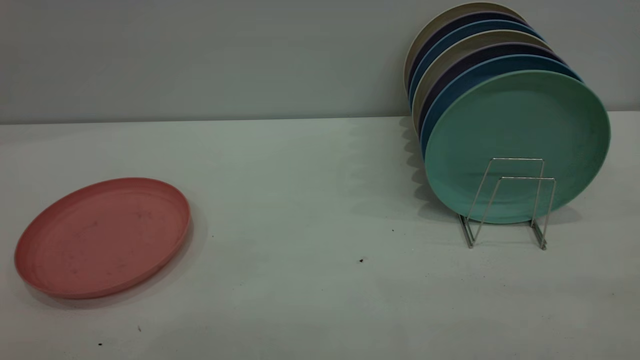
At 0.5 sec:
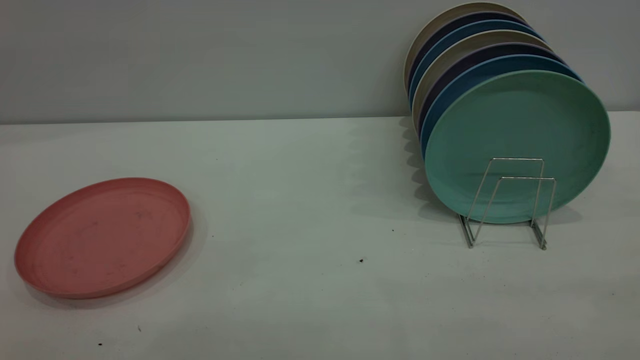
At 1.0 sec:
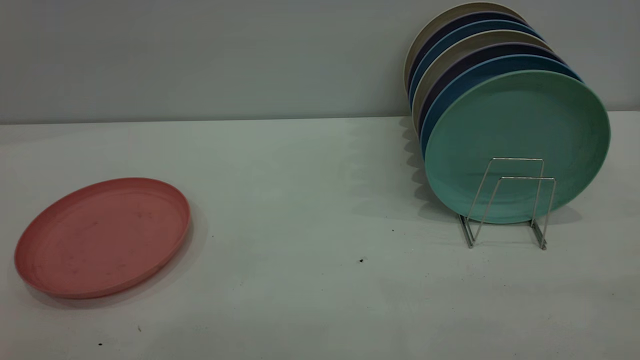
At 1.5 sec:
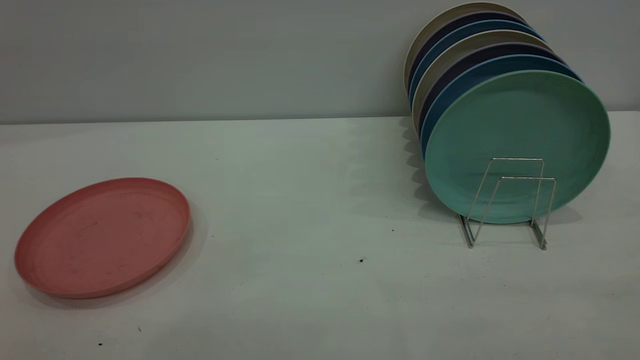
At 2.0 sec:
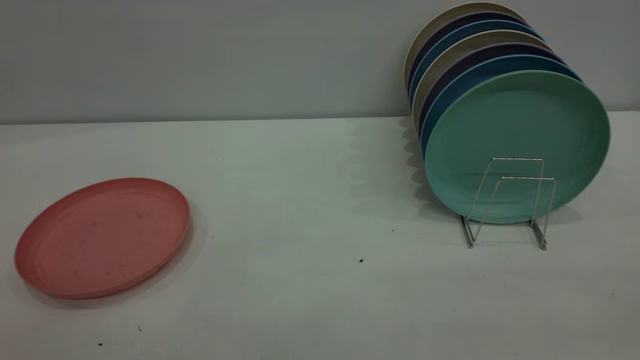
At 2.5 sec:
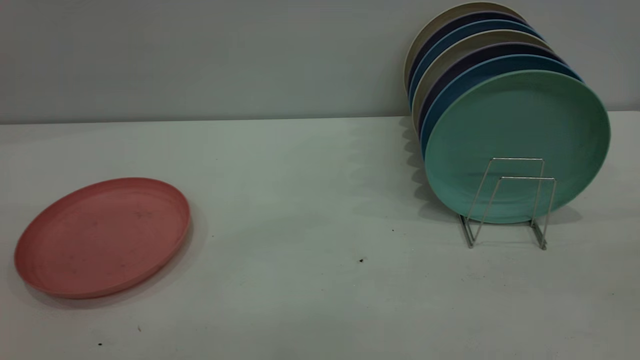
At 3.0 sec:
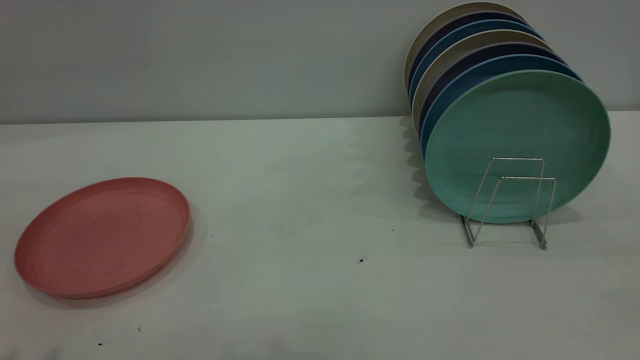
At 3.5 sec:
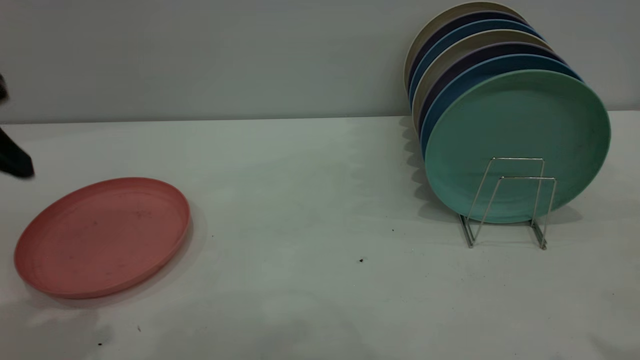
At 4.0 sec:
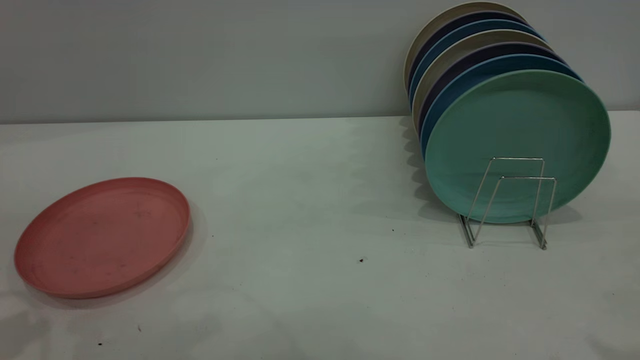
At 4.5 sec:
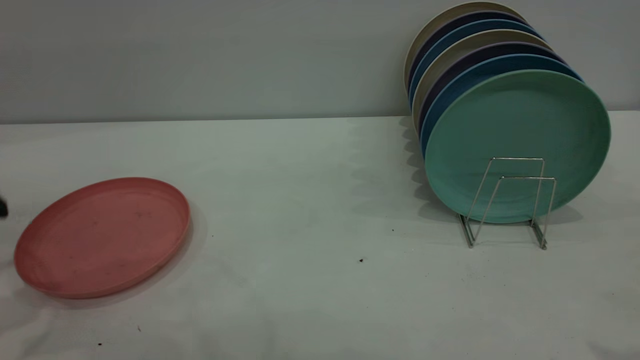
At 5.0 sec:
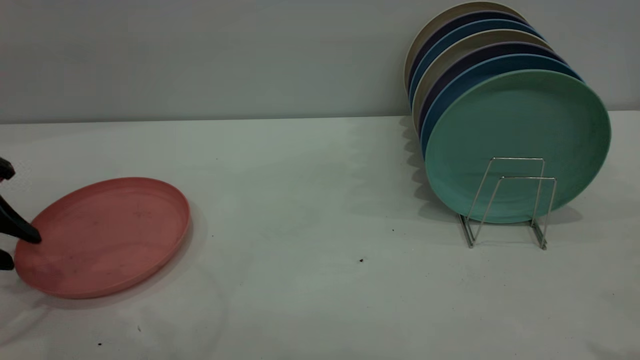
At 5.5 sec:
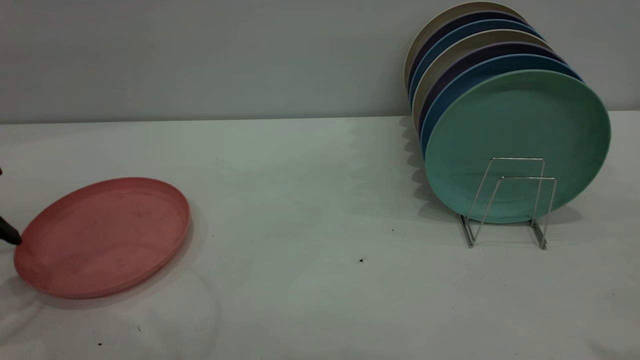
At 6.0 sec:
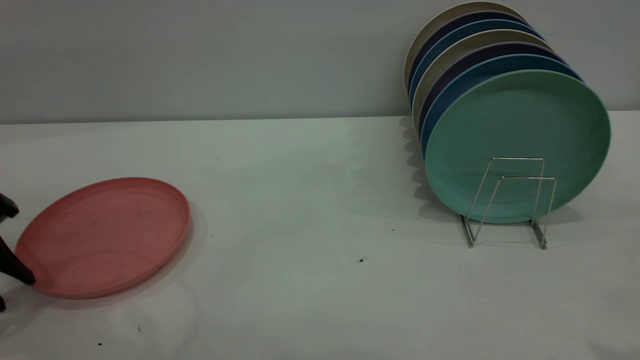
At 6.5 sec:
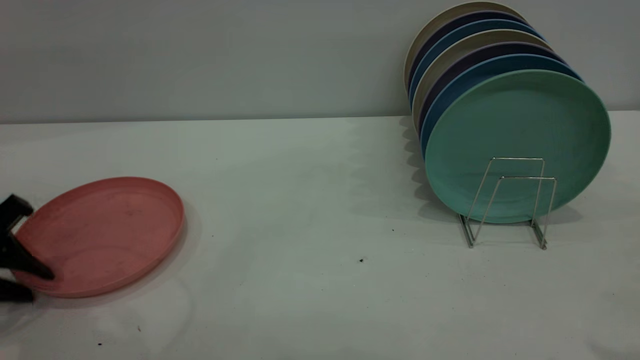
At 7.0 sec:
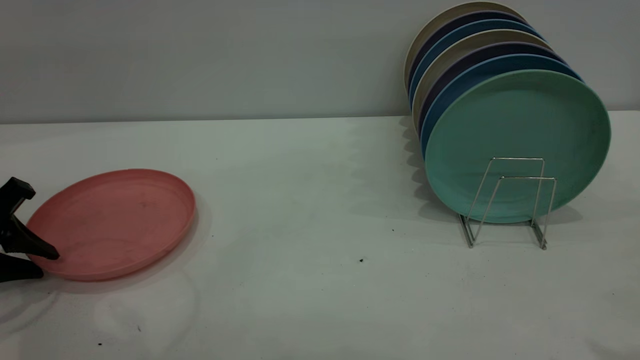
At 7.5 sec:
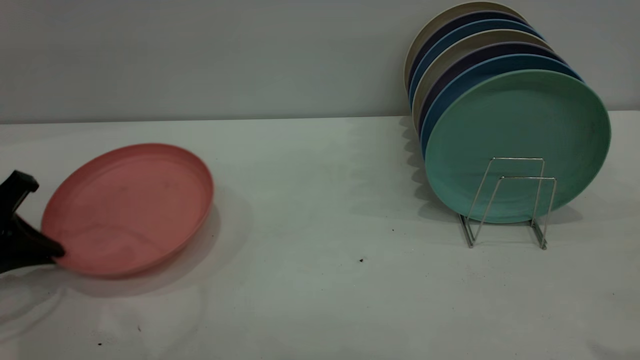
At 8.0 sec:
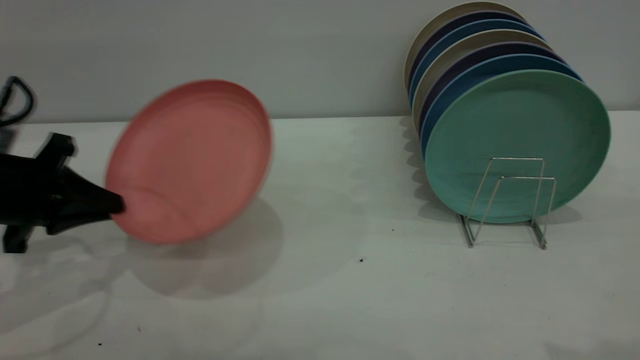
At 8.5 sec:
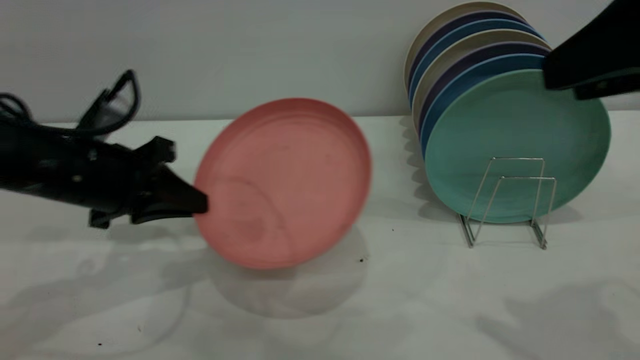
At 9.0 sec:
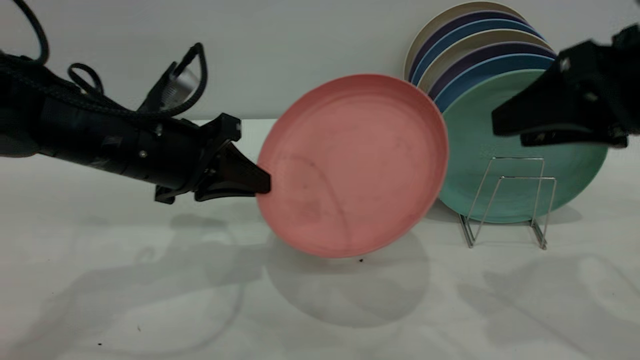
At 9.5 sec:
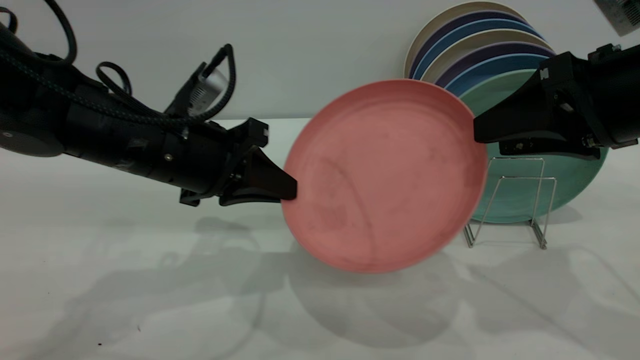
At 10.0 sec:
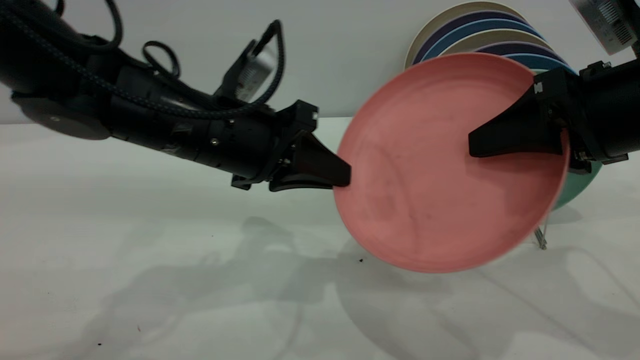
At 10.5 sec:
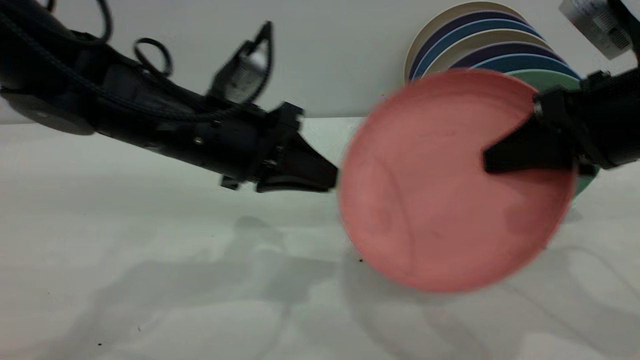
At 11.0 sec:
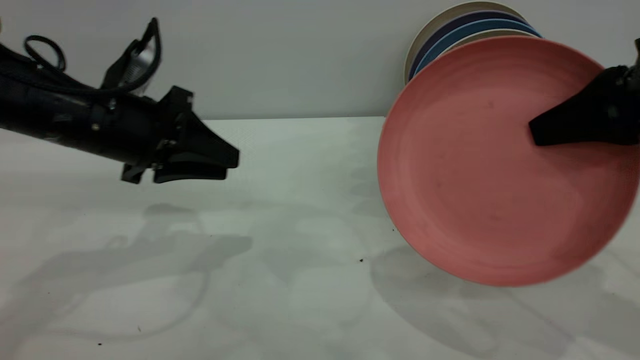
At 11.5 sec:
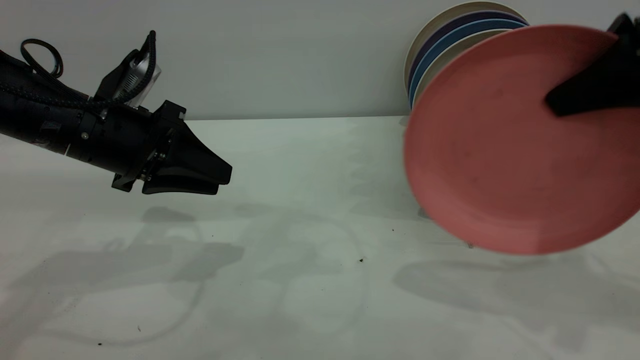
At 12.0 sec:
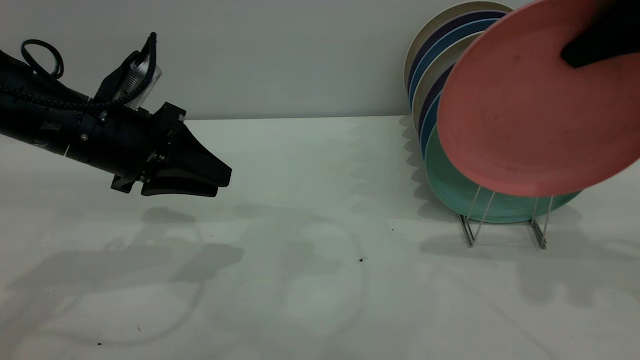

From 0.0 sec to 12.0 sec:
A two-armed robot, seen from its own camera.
Task of the whole recording: the left gripper grasp the pink plate, the left gripper pass the pink plate to the right gripper, and the right gripper place the pink plate on the plate rack.
Step, from 0.0 sec to 7.5 sec: Pick up the plate with the left gripper.
Step, from 8.0 sec to 10.5 sec: Pass the plate from the left gripper to the right gripper.
From 4.0 sec to 6.0 sec: The left gripper goes roughly 15 cm downward.
From 6.0 sec to 8.0 sec: The left gripper moves to the right, approximately 5 cm, and closes its fingers.
From 8.0 sec to 10.0 sec: The right gripper travels downward and forward by about 20 cm. Meanwhile the left gripper shifts about 20 cm to the right.
From 10.0 sec to 12.0 sec: The left gripper goes approximately 10 cm to the left, and opens its fingers. The right gripper is displaced upward and forward by about 10 cm, and closes.

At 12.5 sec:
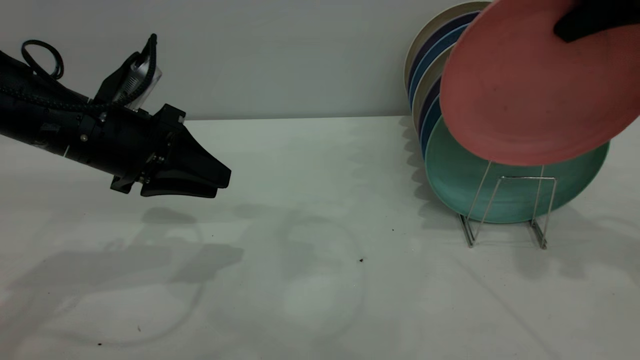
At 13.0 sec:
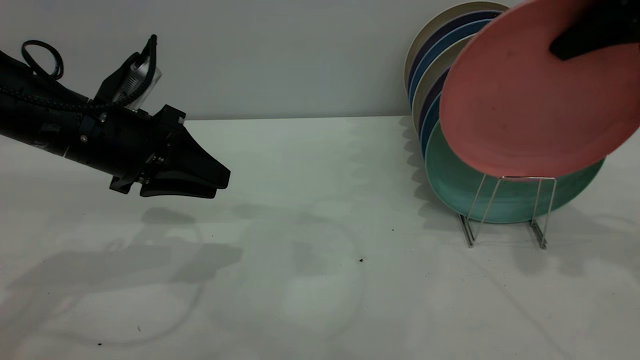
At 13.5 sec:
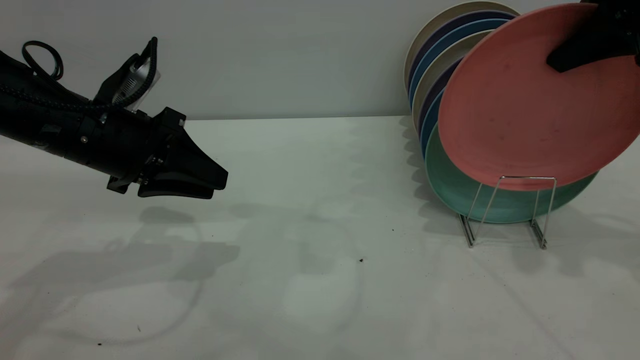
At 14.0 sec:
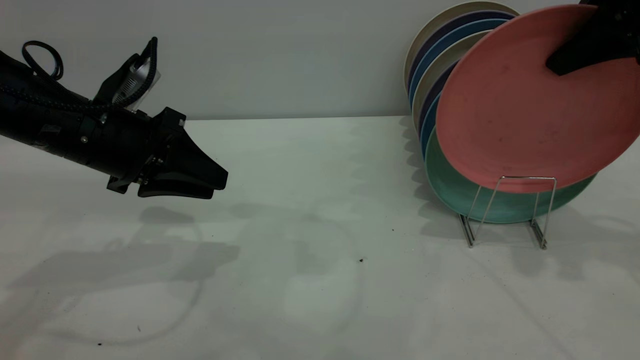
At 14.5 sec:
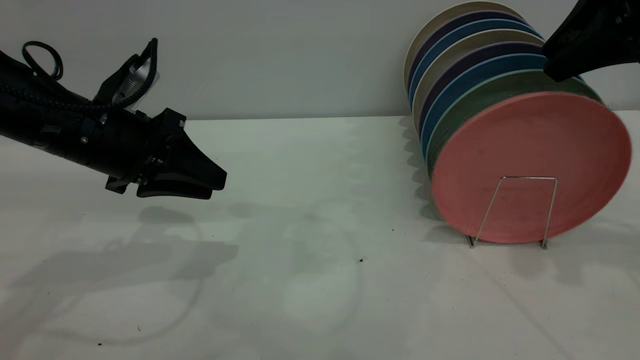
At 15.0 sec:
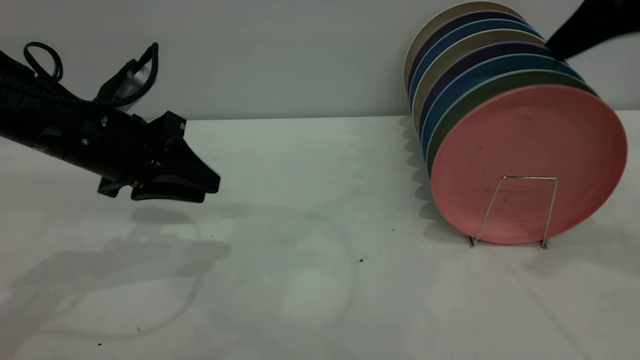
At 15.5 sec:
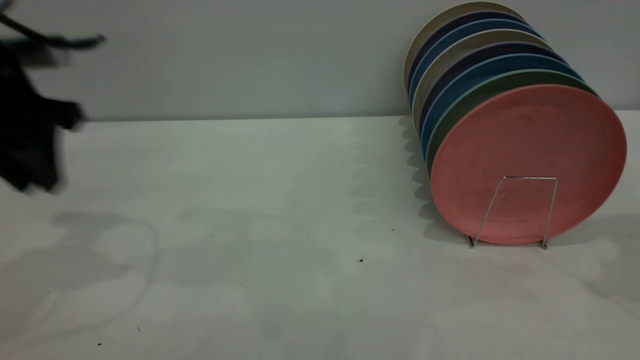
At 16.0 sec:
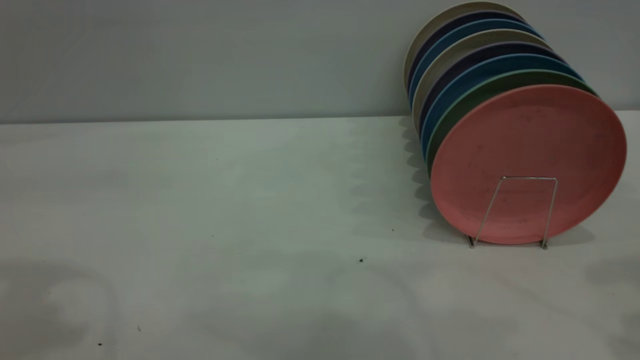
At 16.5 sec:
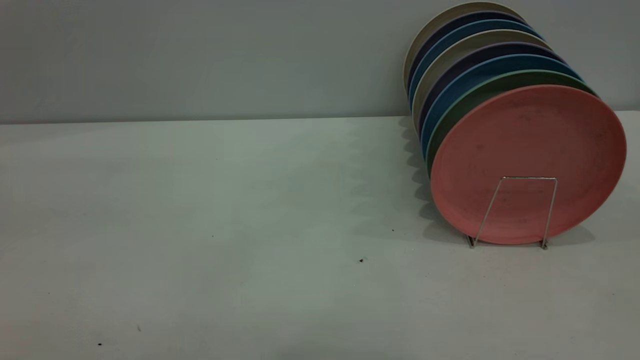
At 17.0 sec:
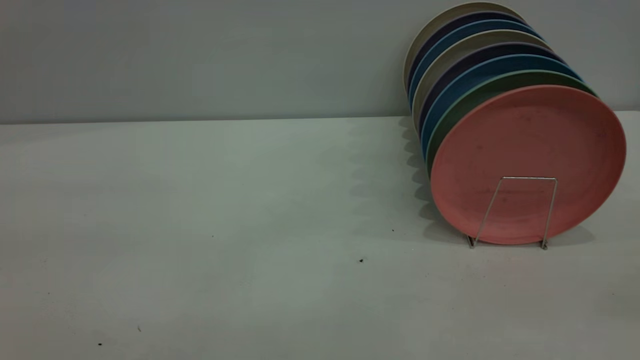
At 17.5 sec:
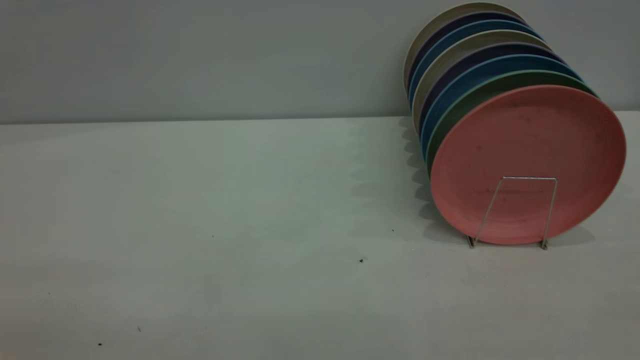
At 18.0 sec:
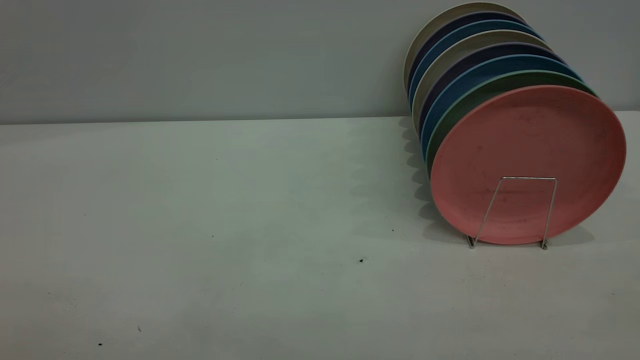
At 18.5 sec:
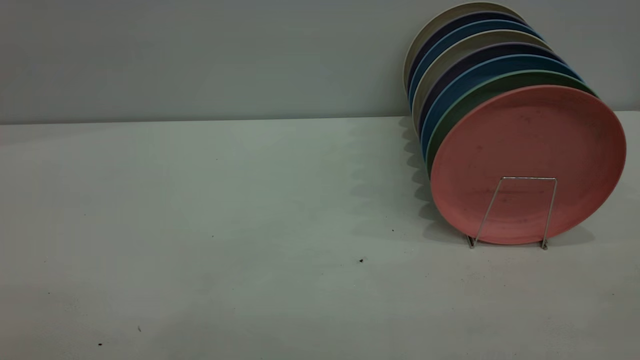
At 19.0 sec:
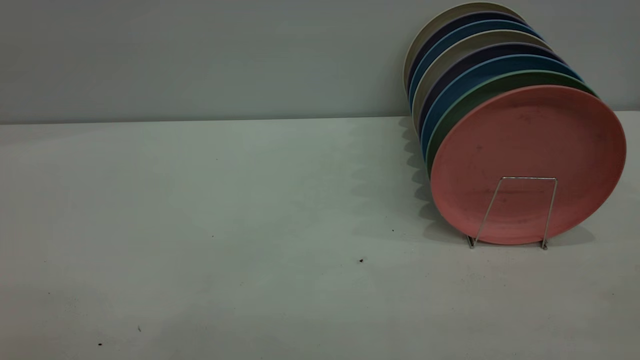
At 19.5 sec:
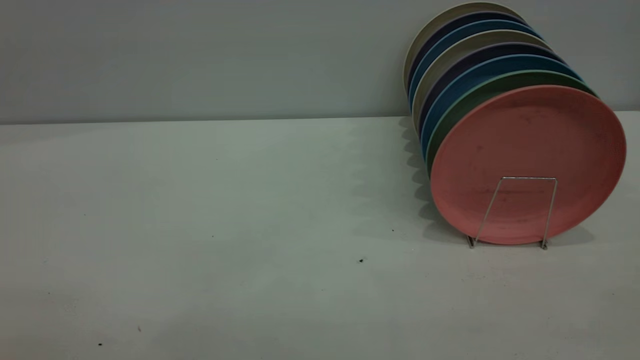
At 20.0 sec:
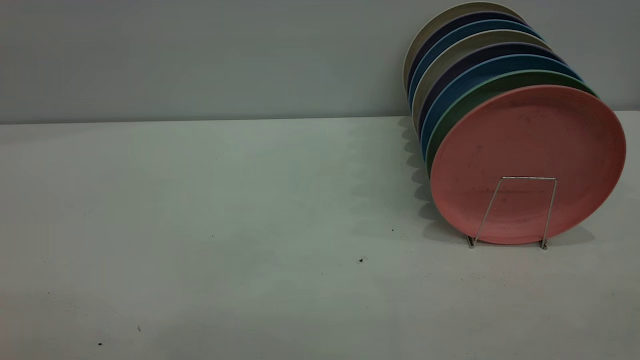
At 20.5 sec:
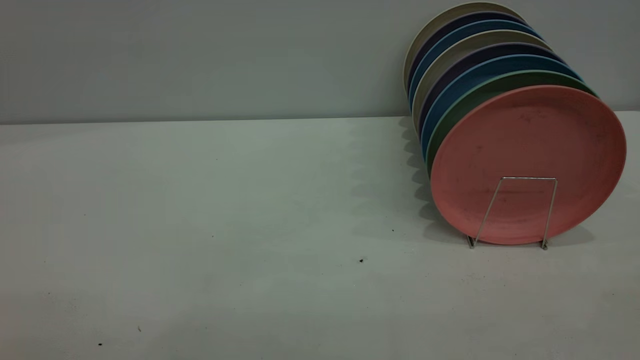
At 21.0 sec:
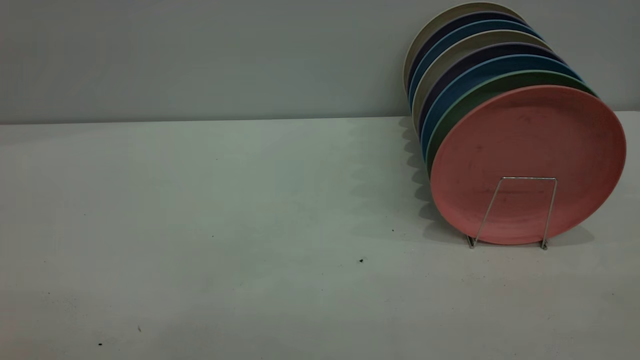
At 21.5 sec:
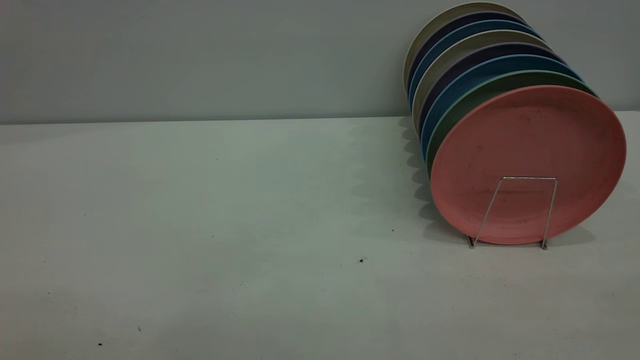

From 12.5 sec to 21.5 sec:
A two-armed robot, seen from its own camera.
Task of the whole recording: the left gripper grasp the pink plate, the left gripper pass the pink plate to the right gripper, and the right gripper place the pink plate on the plate rack.
Step, from 12.5 sec to 15.0 sec: Place the plate on the shelf.
From 12.5 sec to 14.5 sec: The right gripper opens its fingers.
From 14.5 sec to 17.0 sec: The right gripper is displaced backward by approximately 35 cm, and opens up. Meanwhile the left gripper heads upward and backward, covering roughly 40 cm, and opens up.
